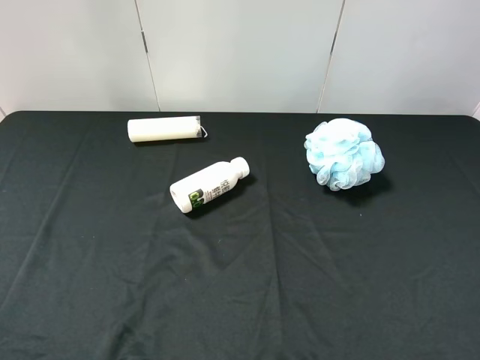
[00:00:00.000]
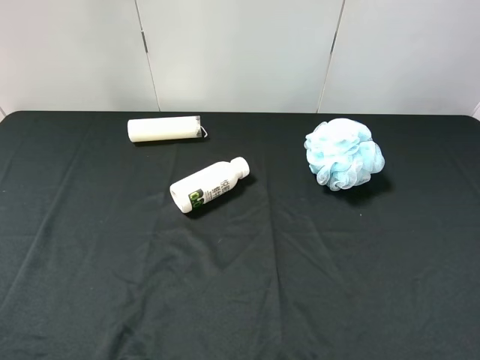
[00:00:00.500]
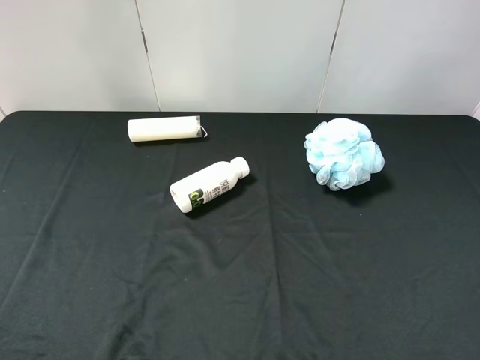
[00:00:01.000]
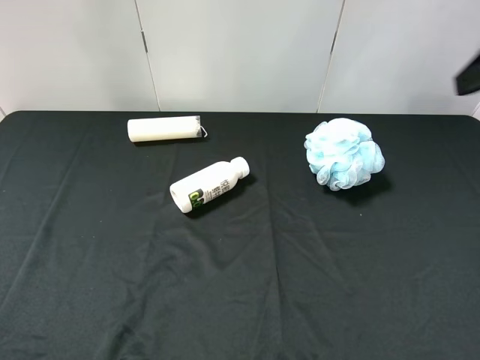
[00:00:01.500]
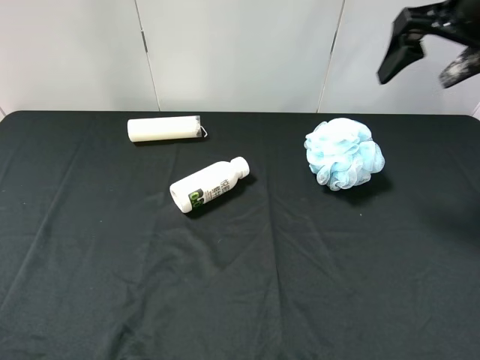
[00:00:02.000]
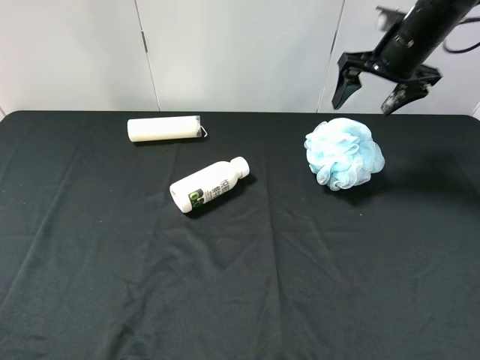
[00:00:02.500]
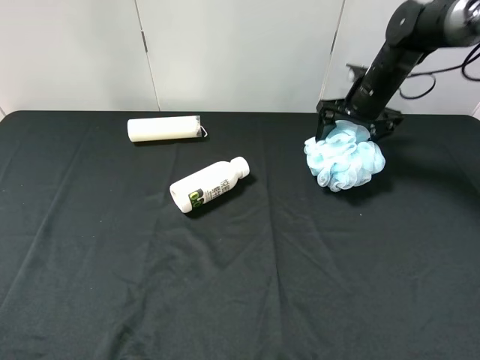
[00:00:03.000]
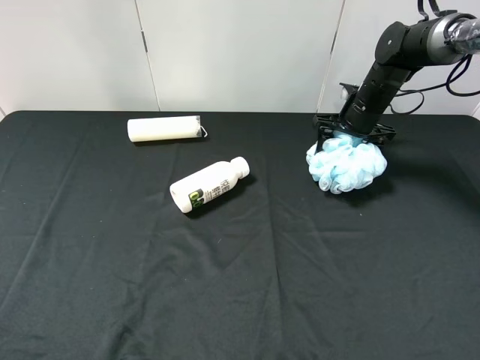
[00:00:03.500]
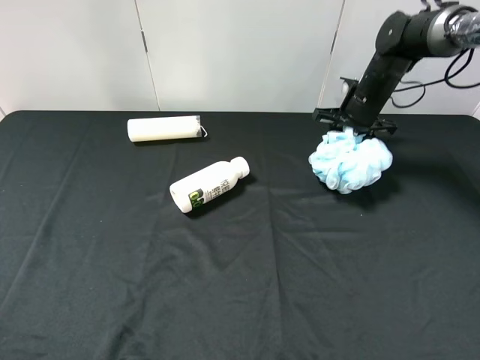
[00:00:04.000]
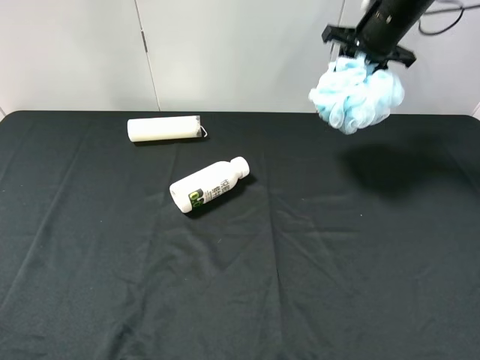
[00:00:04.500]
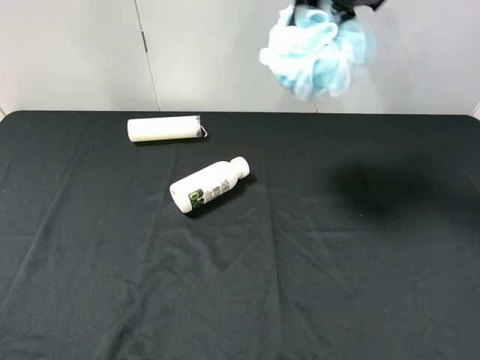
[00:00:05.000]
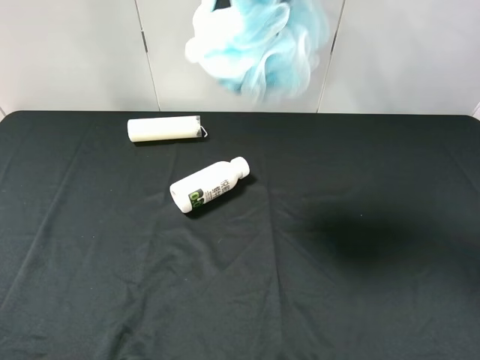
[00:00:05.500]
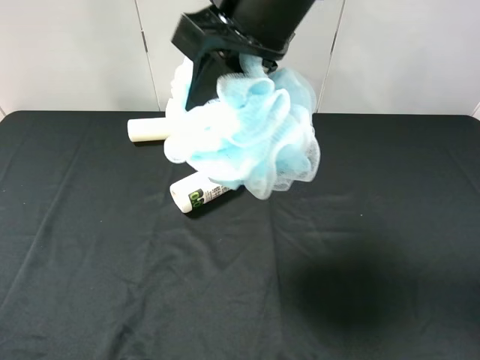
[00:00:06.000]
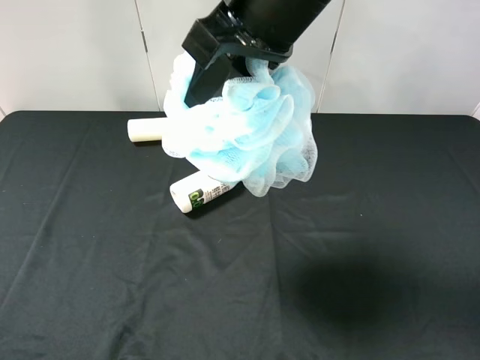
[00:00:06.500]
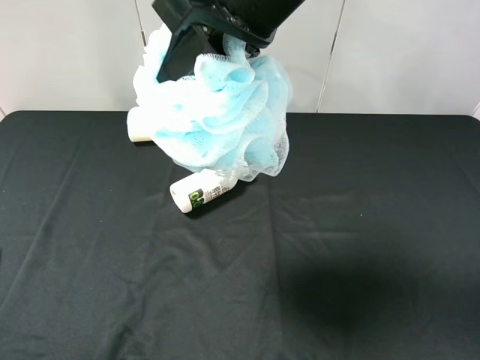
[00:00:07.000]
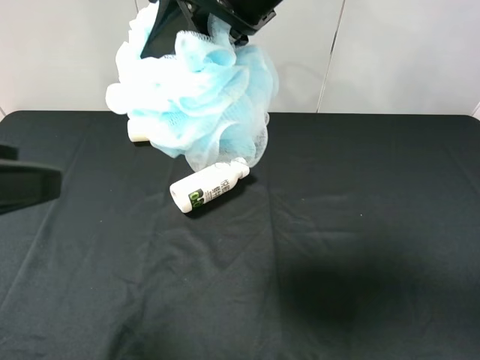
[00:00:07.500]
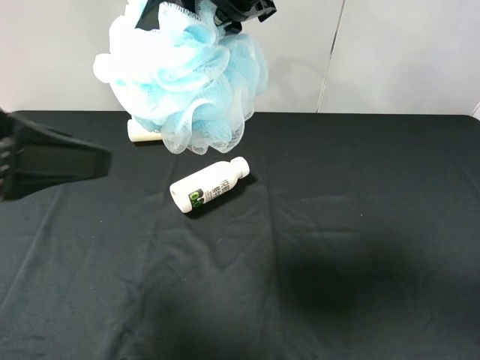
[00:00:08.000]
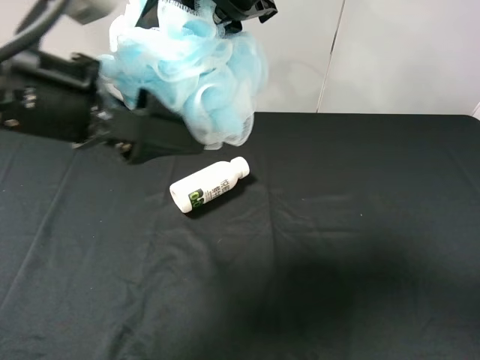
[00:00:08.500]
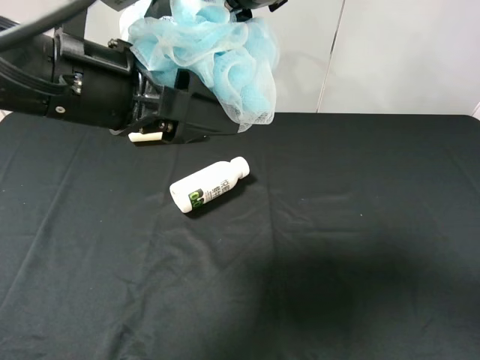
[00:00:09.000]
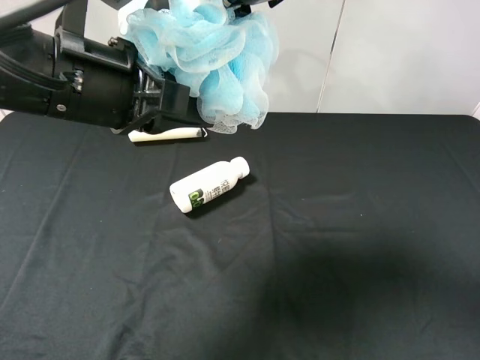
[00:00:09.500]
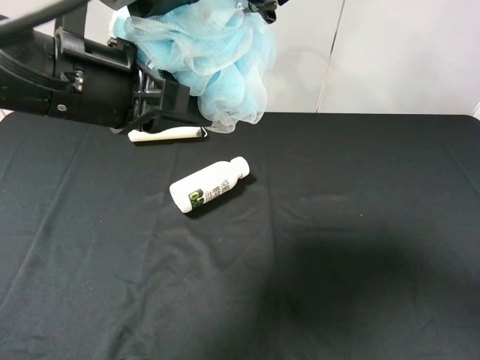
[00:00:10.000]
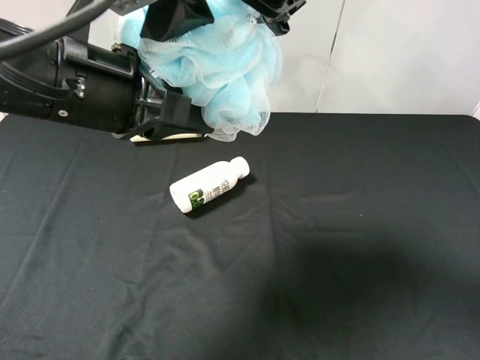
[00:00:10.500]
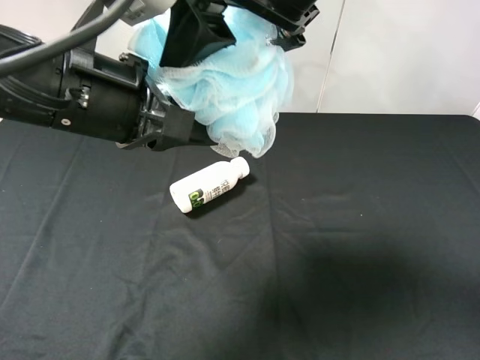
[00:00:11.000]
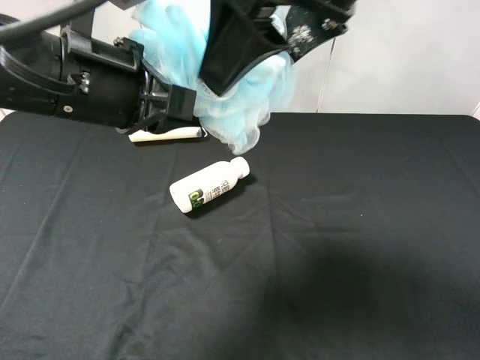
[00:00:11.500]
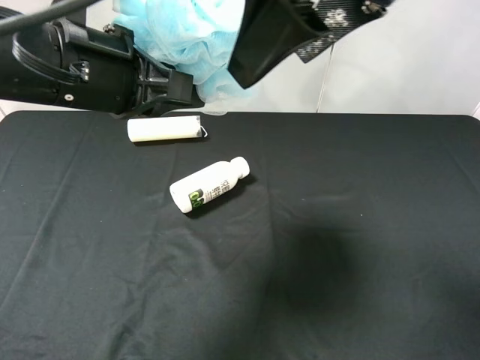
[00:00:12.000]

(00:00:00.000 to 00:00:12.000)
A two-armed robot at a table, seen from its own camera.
Task of the whole recording: use the right gripper to pick up the item and transfer it from the right gripper to the left gripper.
Step, 00:00:00.000 - 00:00:04.000: Use the right gripper to grab the shower sphere on the right side of the table.
Step, 00:00:04.500 - 00:00:11.500: Pass the shower sphere to the left gripper.
00:00:02.000 - 00:00:04.000: The right gripper heads downward and forward, covering roughly 25 cm, and closes its fingers.
00:00:04.000 - 00:00:06.000: The right gripper shifts roughly 35 cm upward, backward and to the left.
00:00:06.000 - 00:00:08.000: The left gripper travels forward and to the right by roughly 15 cm.
00:00:08.000 - 00:00:10.000: The left gripper shifts some 15 cm to the right and forward, and closes up; the right gripper opens.
00:00:10.000 - 00:00:12.000: The right gripper travels to the right by approximately 5 cm.

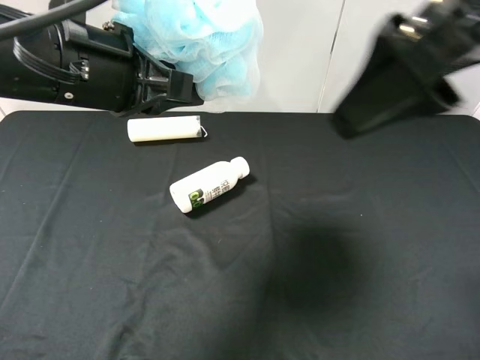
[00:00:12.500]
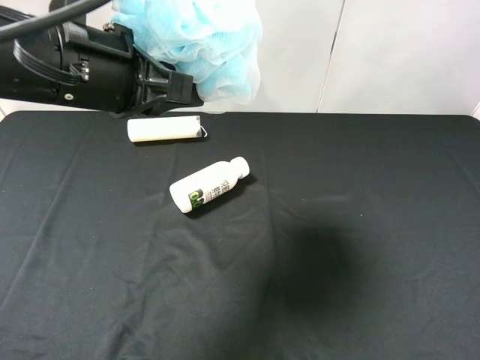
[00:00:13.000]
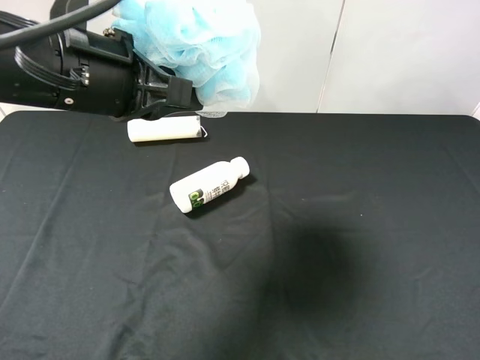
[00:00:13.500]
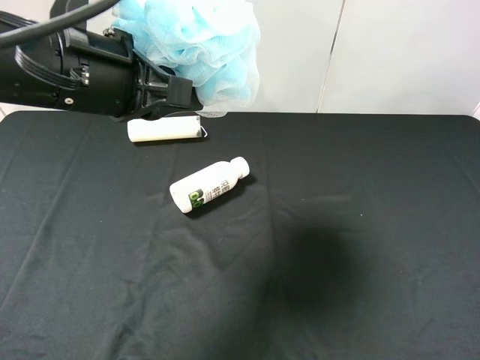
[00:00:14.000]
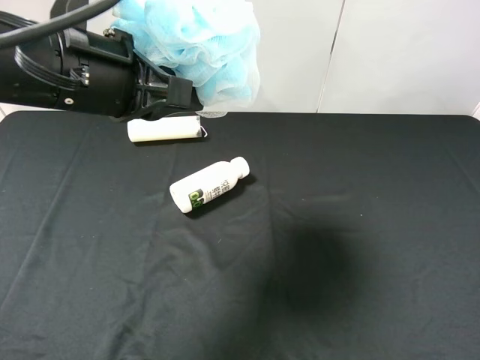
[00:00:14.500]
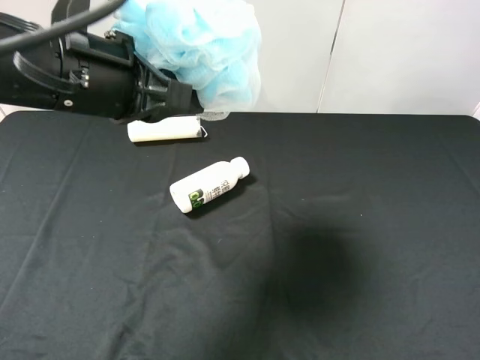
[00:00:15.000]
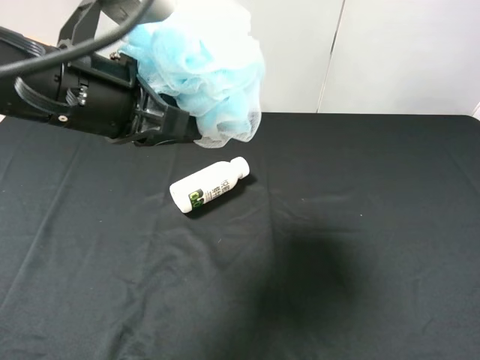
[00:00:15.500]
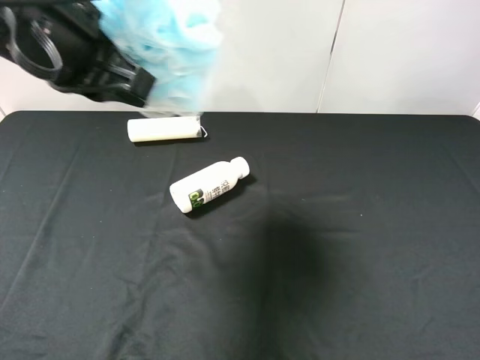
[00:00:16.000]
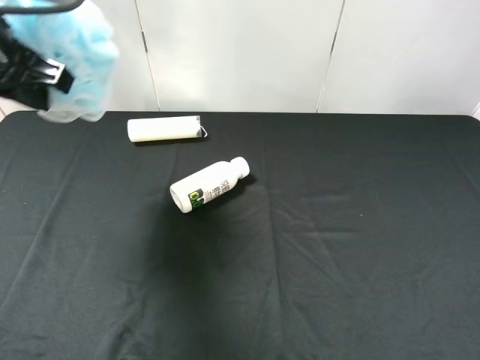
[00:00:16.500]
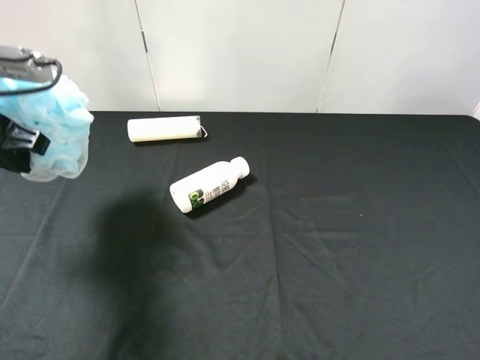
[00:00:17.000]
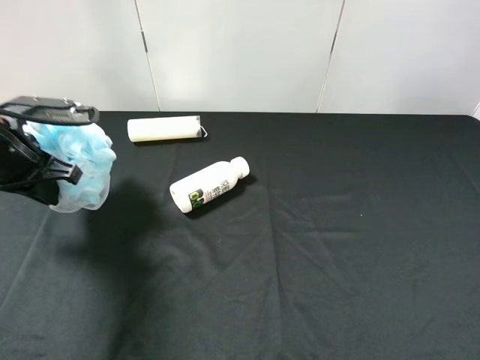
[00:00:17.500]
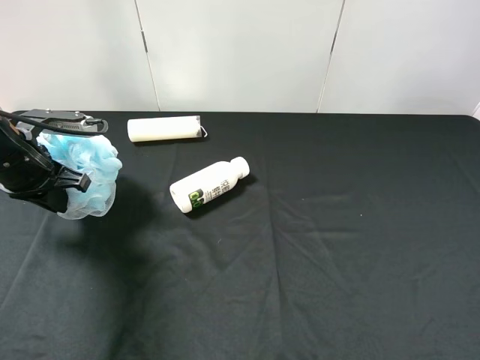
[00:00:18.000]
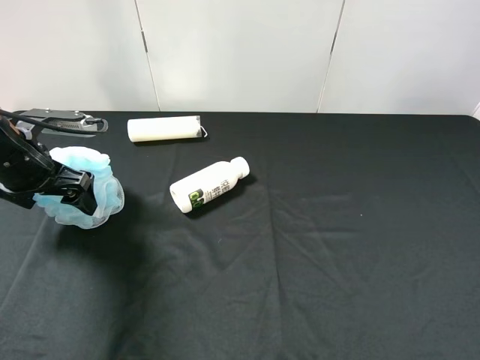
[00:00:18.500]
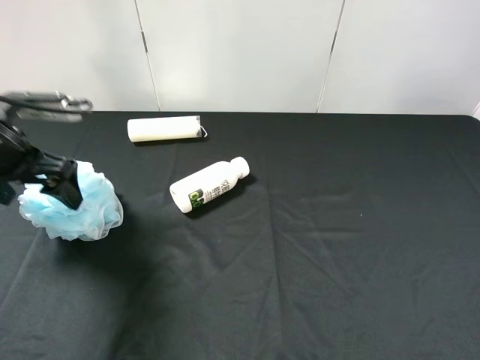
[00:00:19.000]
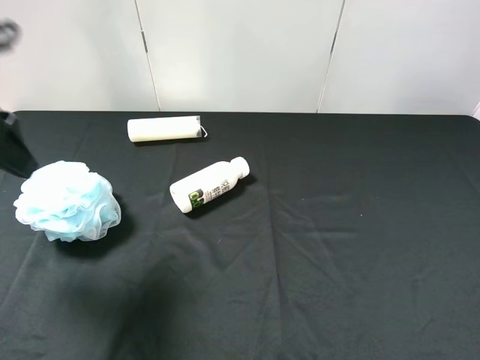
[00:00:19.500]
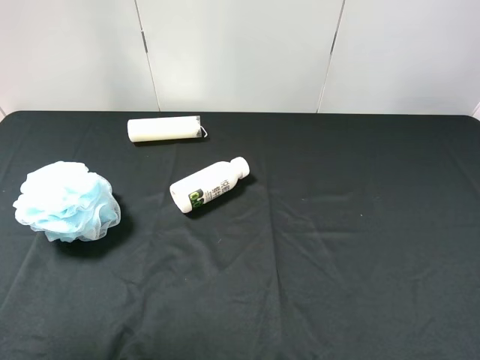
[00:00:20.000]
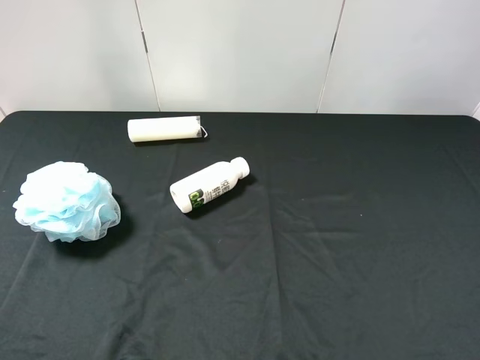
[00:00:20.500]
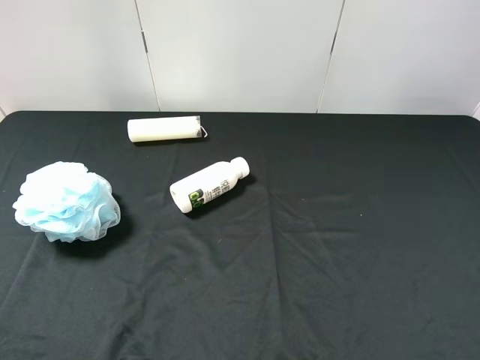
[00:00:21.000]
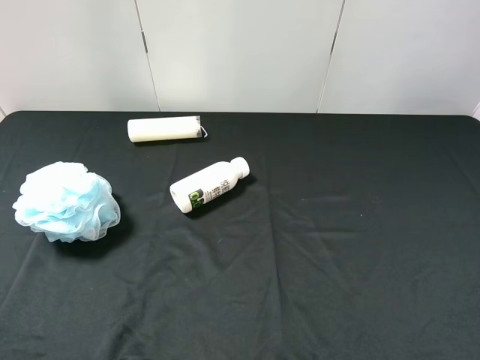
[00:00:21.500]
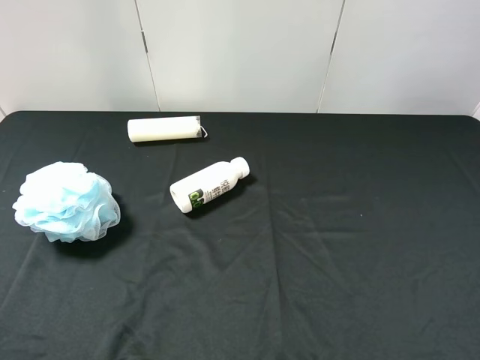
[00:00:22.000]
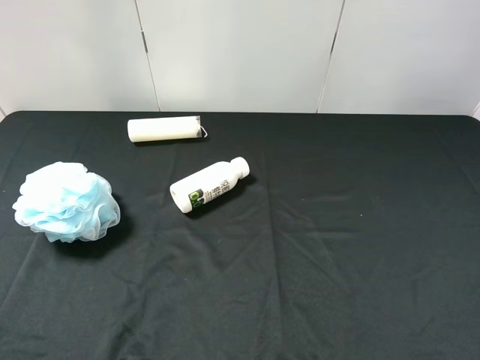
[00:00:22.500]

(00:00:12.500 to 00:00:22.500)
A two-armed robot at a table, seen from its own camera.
Task of the whole recording: use the right gripper to pick up the item and transfer it from the right gripper to the left gripper.
Step, 00:00:12.500 - 00:00:18.000: The left gripper places shower sphere on the left side of the table.
00:00:12.500 - 00:00:14.500: The right gripper travels to the right, backward and downward by about 25 cm.
00:00:14.500 - 00:00:16.500: The left gripper shifts some 10 cm to the left.
00:00:16.500 - 00:00:18.500: The left gripper heads downward, covering about 15 cm, and opens up.
00:00:18.500 - 00:00:20.500: The left gripper is displaced backward and upward by roughly 35 cm.
